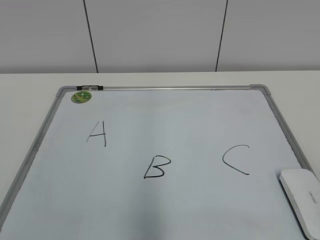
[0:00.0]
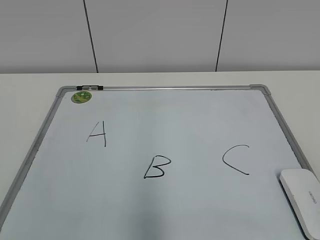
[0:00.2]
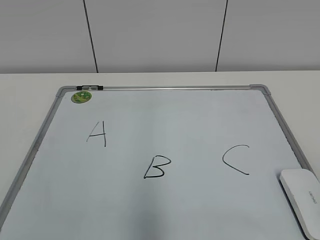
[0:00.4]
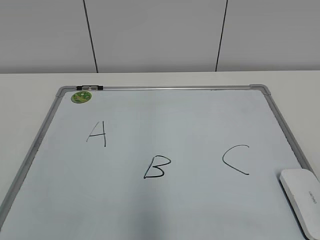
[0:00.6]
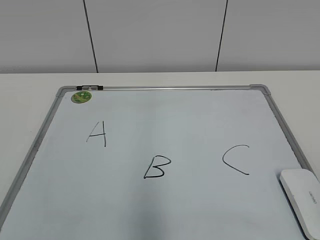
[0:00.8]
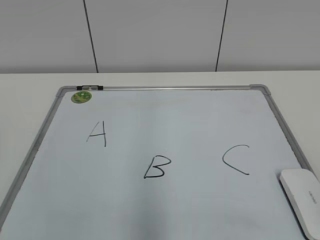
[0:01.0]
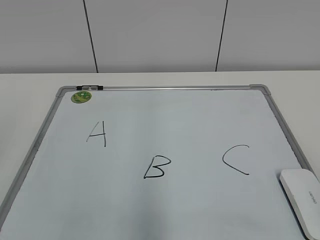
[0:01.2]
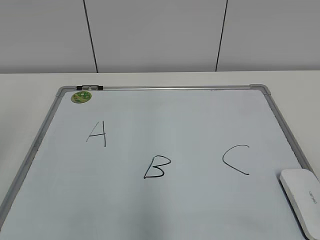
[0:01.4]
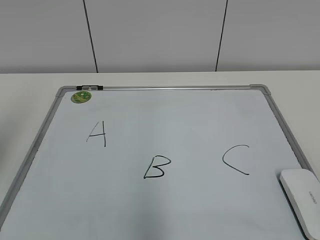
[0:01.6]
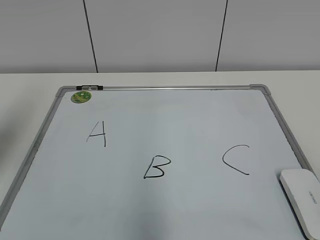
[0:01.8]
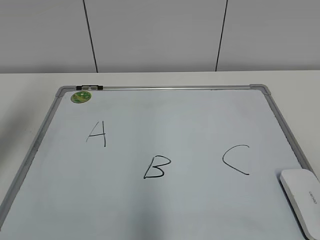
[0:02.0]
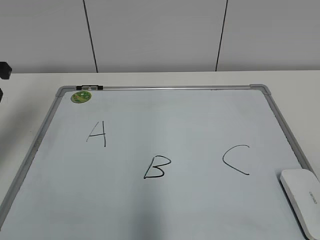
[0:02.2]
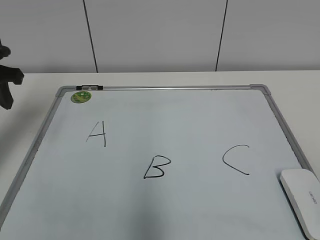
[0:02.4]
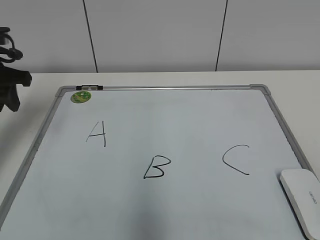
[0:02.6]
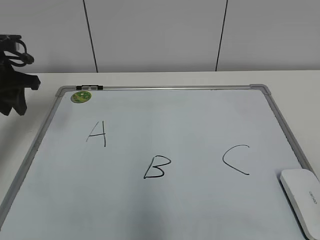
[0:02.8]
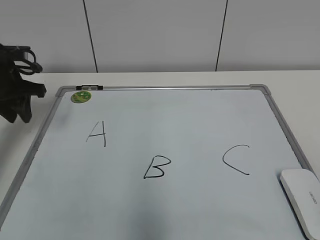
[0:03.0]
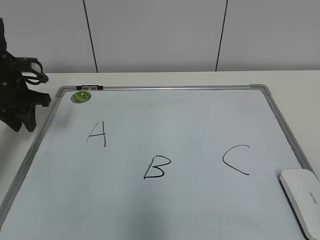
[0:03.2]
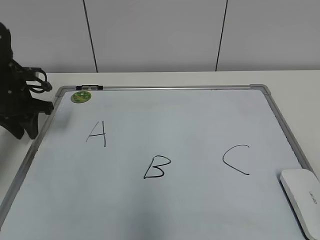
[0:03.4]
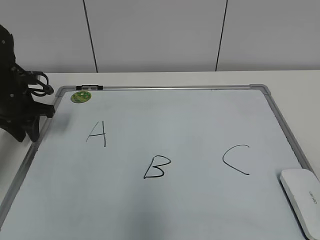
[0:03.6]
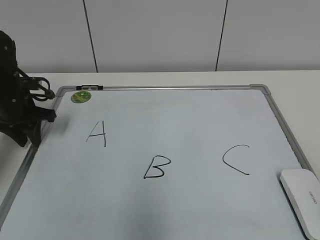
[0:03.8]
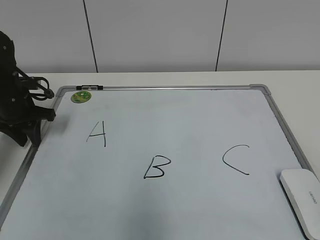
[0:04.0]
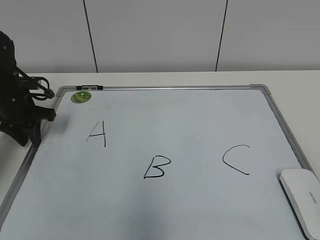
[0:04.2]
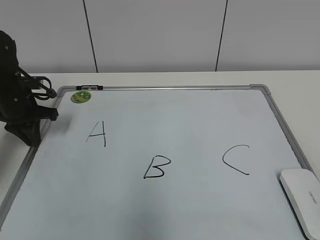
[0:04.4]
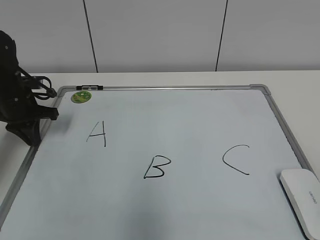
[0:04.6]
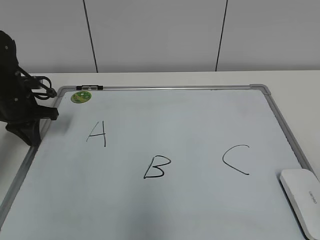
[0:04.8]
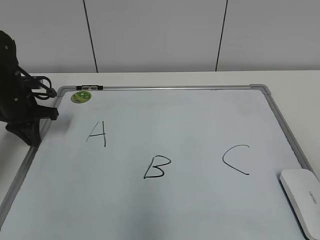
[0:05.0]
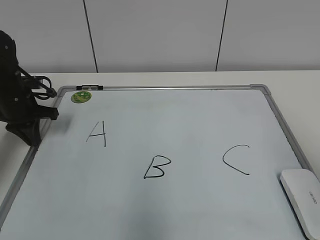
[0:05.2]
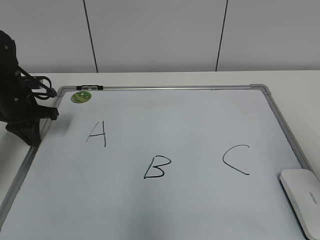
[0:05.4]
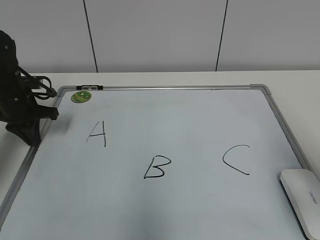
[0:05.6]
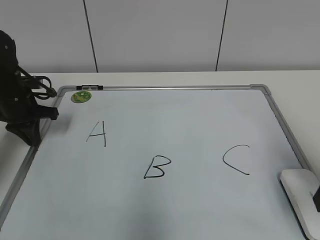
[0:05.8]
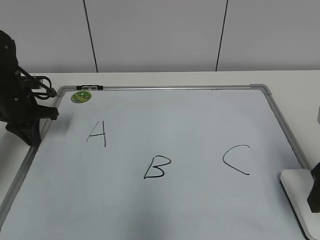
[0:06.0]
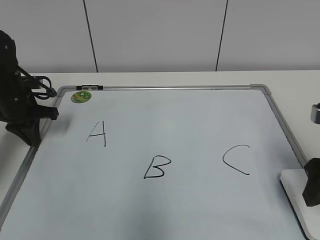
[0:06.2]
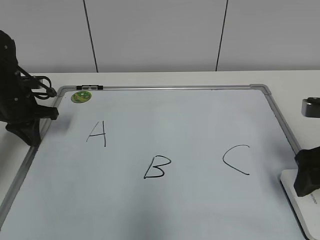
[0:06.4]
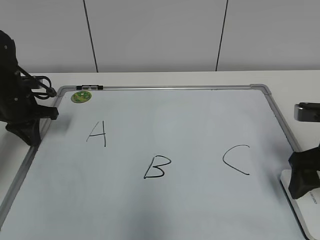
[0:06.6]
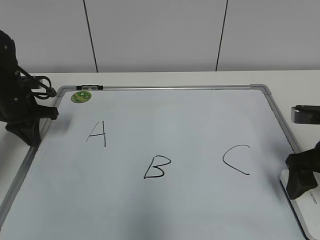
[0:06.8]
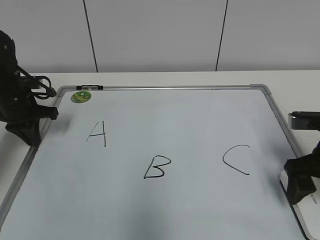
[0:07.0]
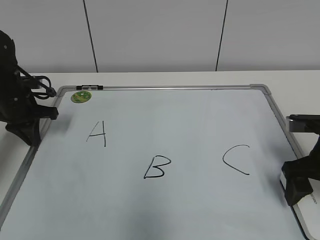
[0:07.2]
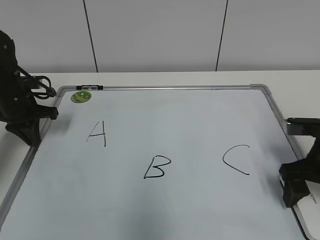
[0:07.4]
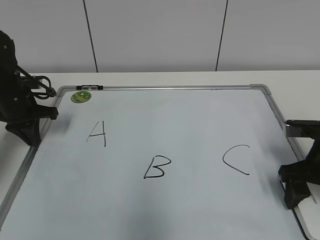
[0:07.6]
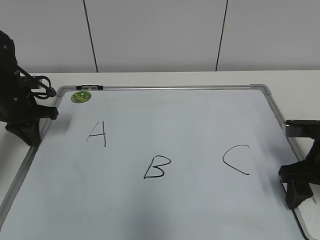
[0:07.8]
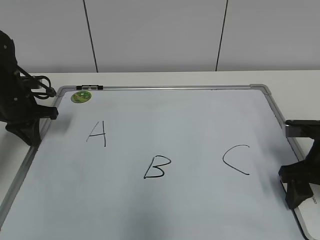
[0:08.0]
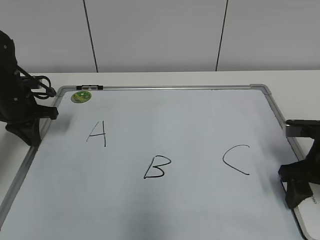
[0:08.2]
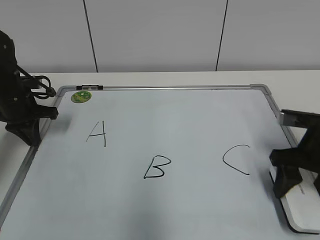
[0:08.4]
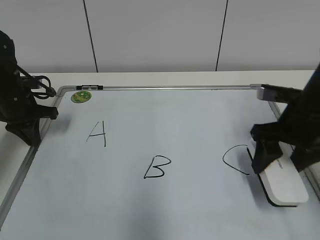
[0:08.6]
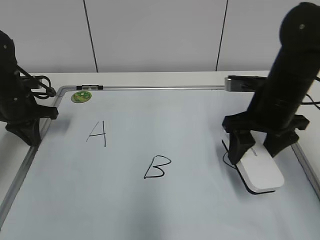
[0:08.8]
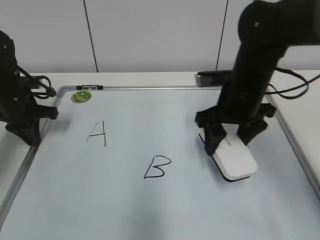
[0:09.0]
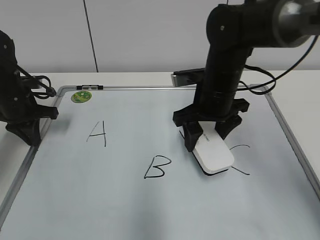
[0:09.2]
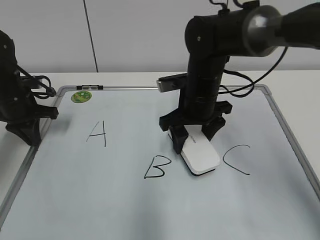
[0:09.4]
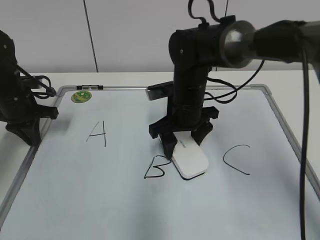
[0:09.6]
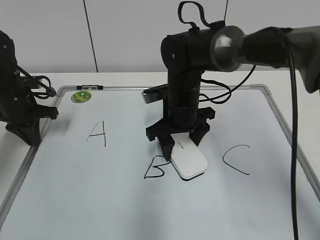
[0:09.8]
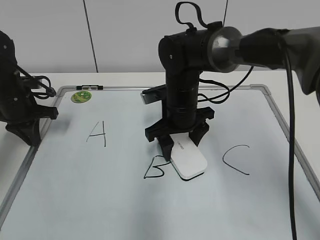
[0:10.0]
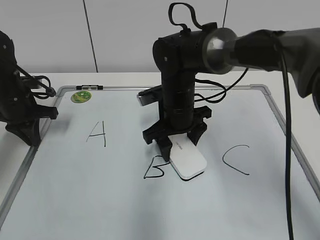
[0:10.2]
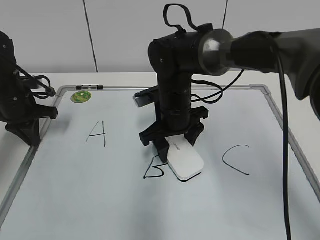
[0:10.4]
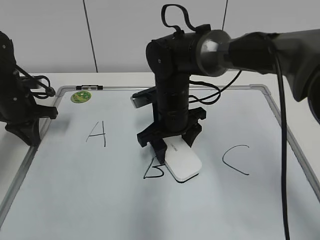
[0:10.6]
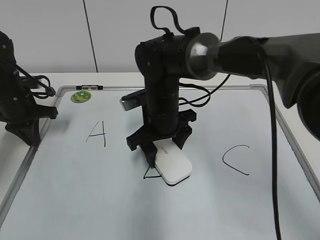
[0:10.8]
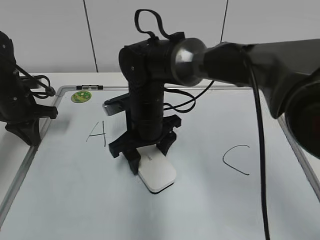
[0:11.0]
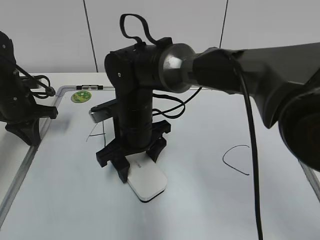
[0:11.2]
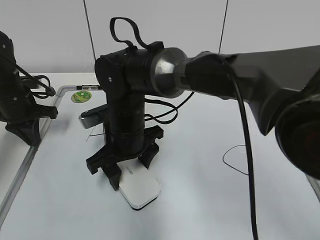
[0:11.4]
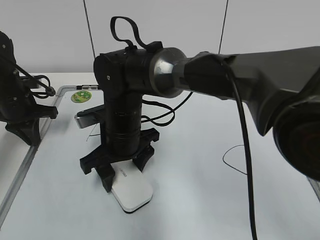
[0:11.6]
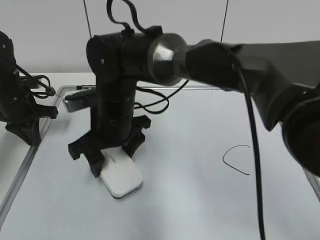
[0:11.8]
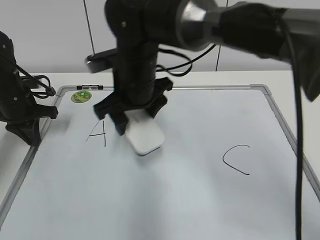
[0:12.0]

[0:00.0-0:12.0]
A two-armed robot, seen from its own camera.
Task of the whole recording: pick up the eraser on the blackboard and erase the letter "B".
Step, 0:00.0 to 0:04.4: Hold the drawing board steady with your left hand.
Step, 0:04.6 to 0:08.0: Grab the eraser with your right hand.
Step, 0:08.2 to 0:11.4: Erase the letter B with your right hand.
0:01.6 to 0:03.0: The left gripper goes some 25 cm forward and downward.
0:03.0 to 0:04.4: The left gripper travels downward by approximately 5 cm.
0:04.4 to 0:06.0: The right gripper travels forward by approximately 20 cm.
0:06.0 to 0:07.6: The right gripper goes roughly 10 cm downward and forward.
0:07.6 to 0:09.0: The right gripper is displaced to the left, forward and upward by about 15 cm, and closes its fingers.
0:09.0 to 0:10.4: The right gripper shifts about 15 cm to the left and downward.
0:10.4 to 0:12.0: The right gripper shifts some 10 cm upward and to the left.

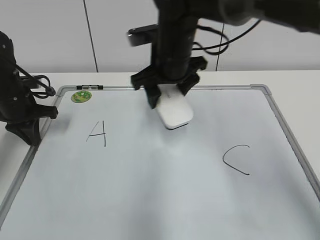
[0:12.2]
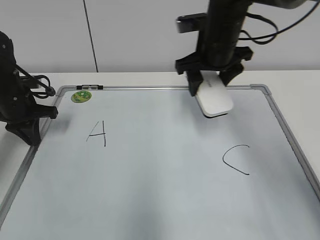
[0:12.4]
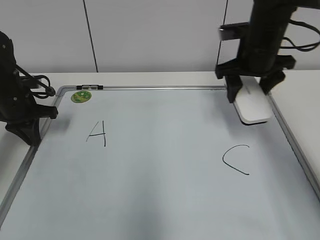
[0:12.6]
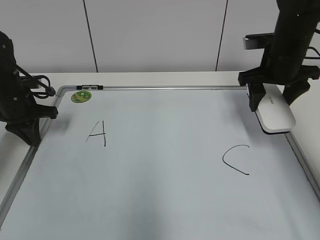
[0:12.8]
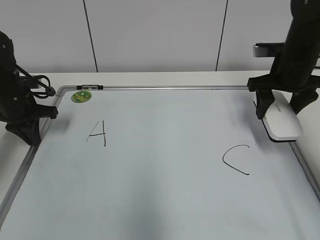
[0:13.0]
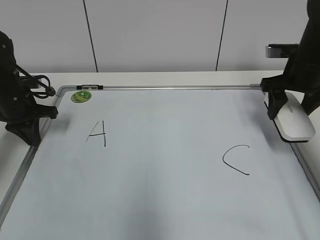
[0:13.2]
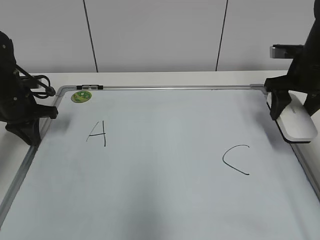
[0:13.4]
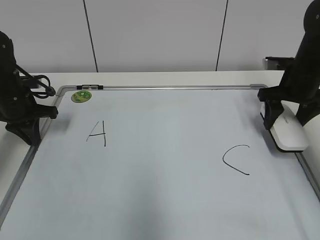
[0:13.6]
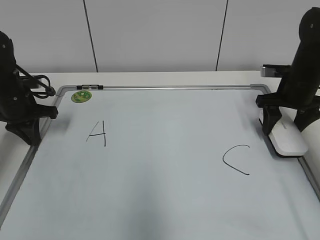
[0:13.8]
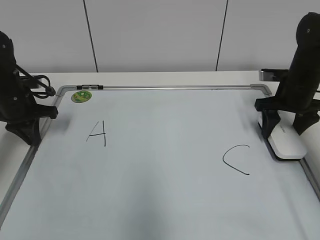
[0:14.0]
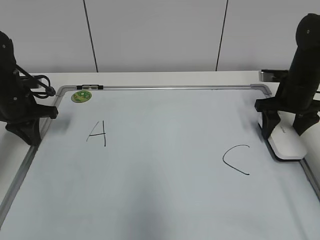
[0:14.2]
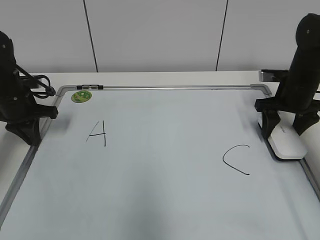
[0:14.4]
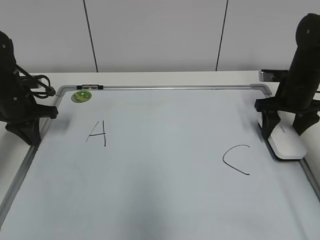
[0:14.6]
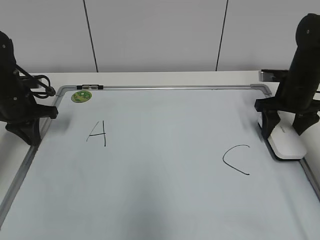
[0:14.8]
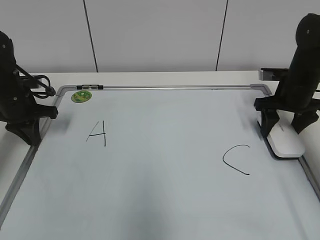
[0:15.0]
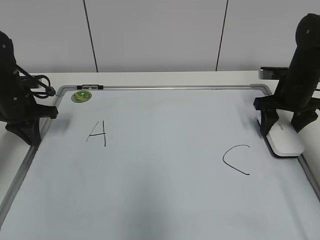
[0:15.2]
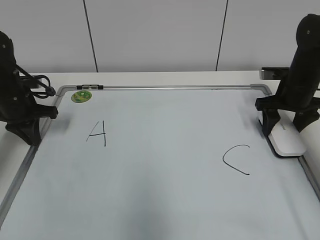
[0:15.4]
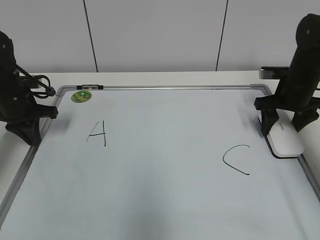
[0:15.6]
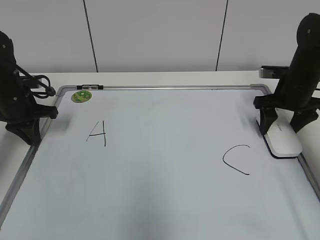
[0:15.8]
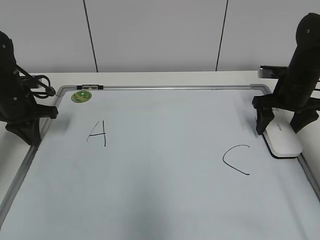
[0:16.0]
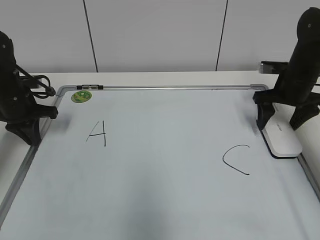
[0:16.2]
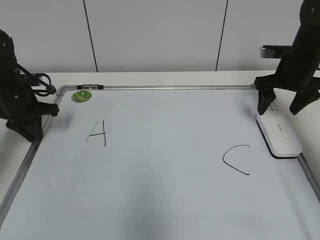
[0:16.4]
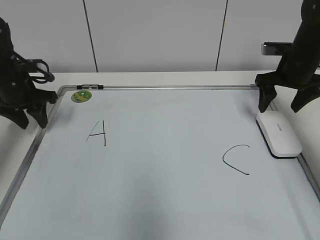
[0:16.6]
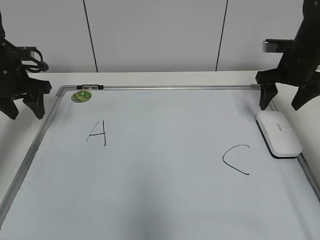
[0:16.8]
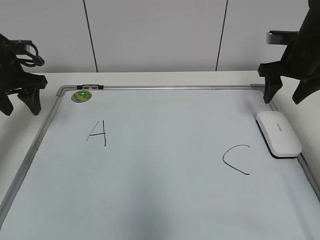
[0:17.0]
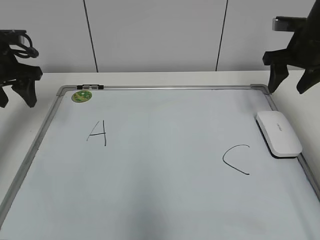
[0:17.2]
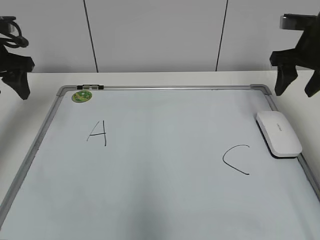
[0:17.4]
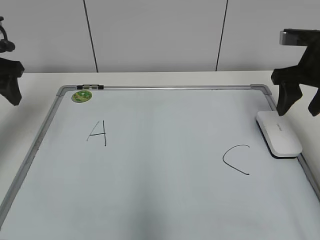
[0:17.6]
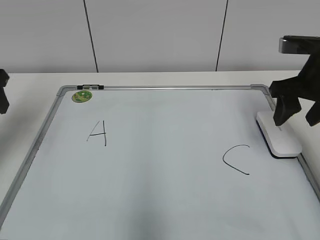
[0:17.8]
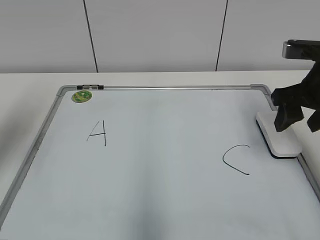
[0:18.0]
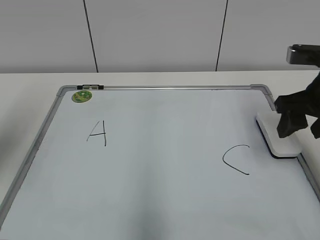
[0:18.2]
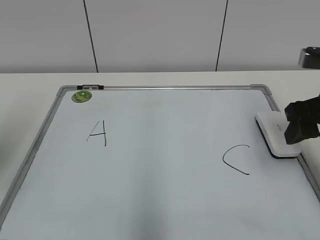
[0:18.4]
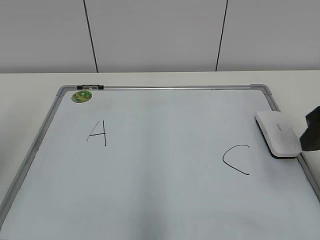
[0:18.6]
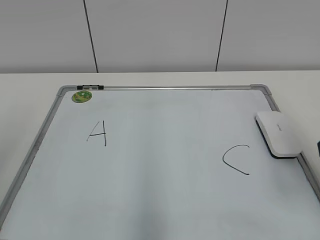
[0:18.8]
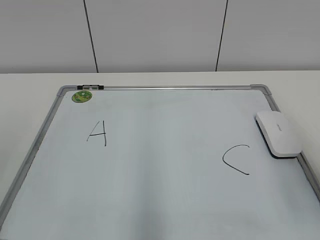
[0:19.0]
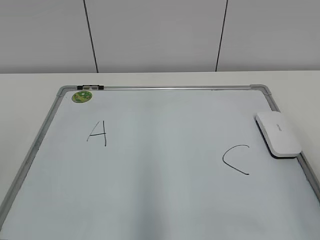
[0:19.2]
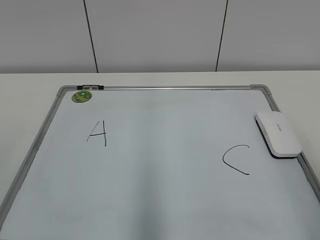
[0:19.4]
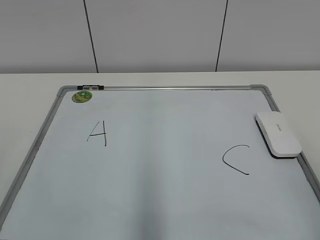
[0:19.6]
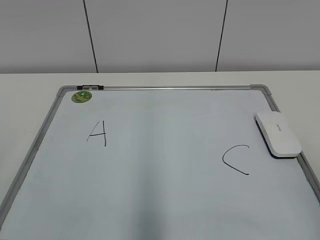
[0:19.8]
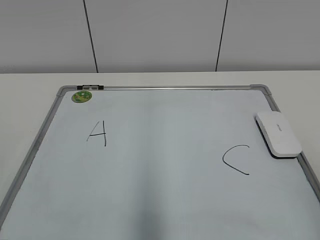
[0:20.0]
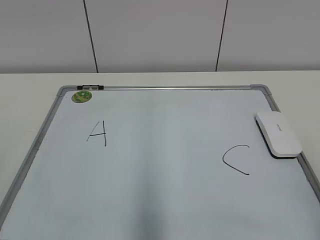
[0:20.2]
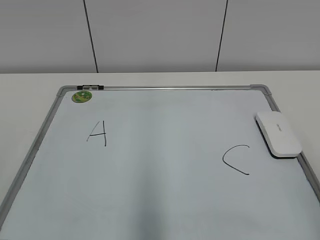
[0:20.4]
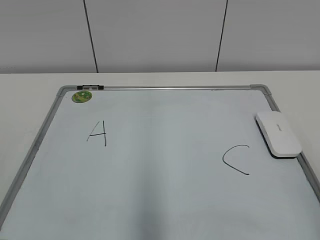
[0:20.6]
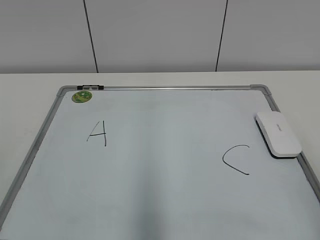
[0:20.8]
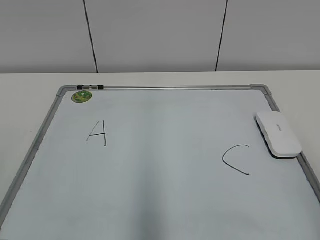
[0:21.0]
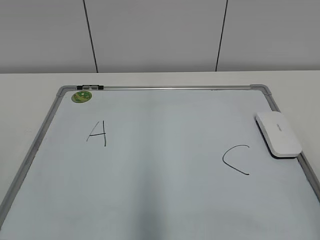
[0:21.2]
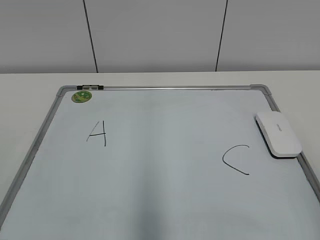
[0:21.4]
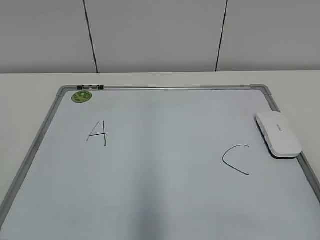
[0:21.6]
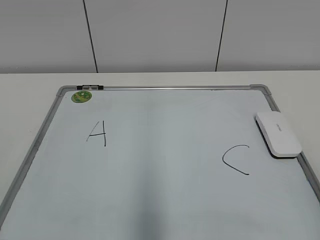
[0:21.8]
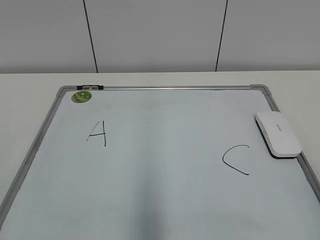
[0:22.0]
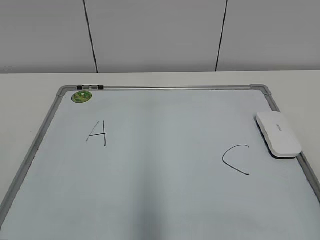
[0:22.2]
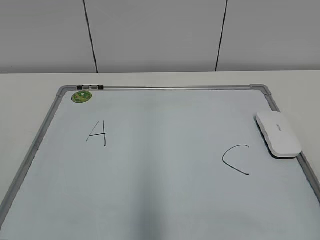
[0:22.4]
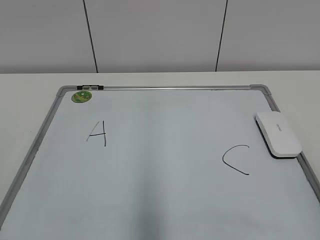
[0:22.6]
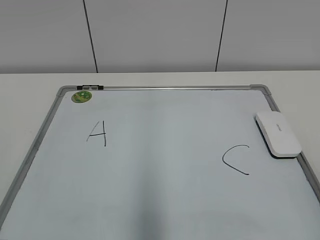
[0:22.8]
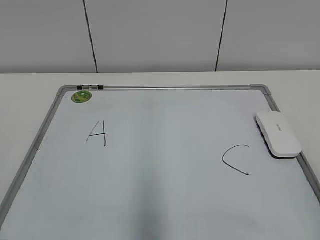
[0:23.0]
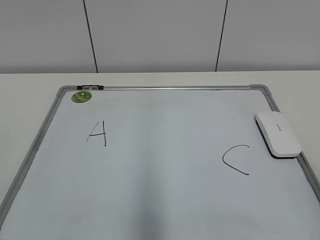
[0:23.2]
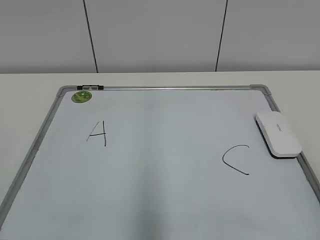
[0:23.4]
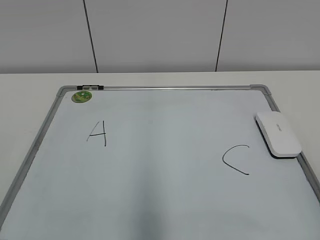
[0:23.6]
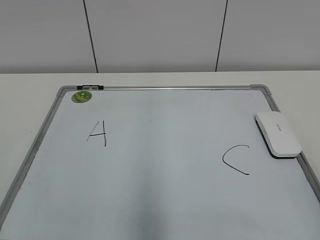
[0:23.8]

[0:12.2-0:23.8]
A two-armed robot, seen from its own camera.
Task of the whole recording: pick up the eraser on the blackboard and erase the letter "B".
0:12.2 to 0:13.6: The right gripper is displaced to the right by some 25 cm.
0:13.6 to 0:15.0: The grippers stay close to where they were, moving slightly.
0:15.0 to 0:16.6: The left gripper opens, while the right gripper opens up.
0:16.6 to 0:18.0: The right gripper moves backward, about 15 cm, and closes its fingers, while the left gripper travels backward and upward by roughly 20 cm.
0:18.0 to 0:19.4: Both grippers move backward, some 25 cm.
0:22.4 to 0:23.8: The two grippers keep their place.
